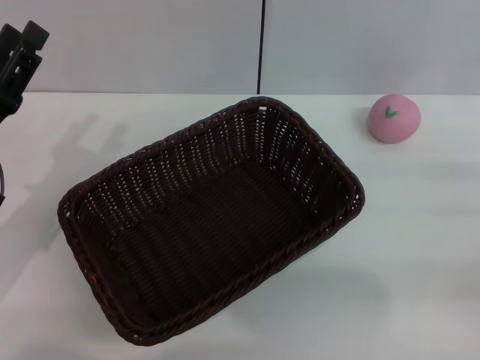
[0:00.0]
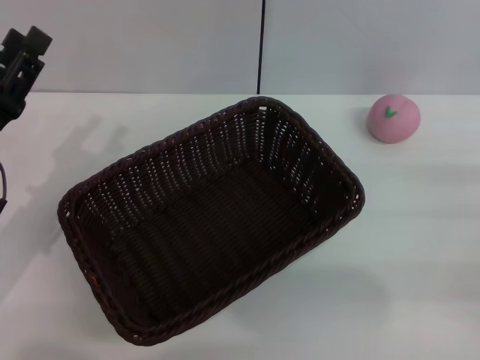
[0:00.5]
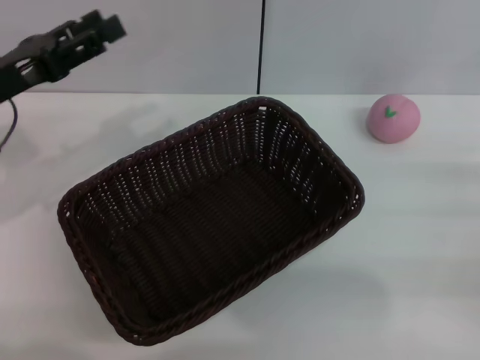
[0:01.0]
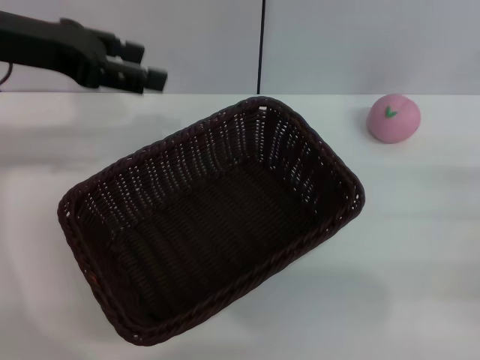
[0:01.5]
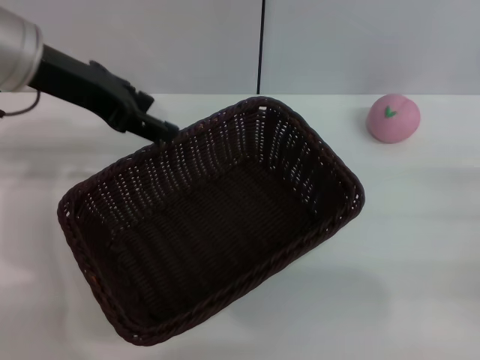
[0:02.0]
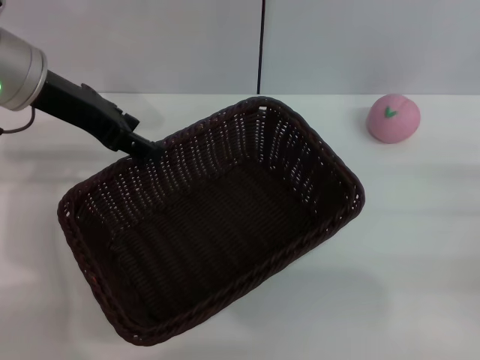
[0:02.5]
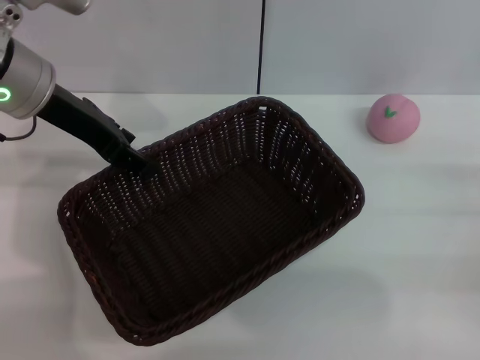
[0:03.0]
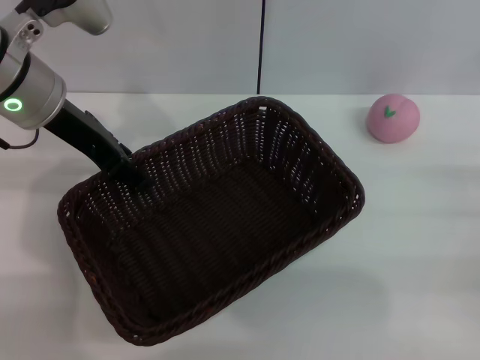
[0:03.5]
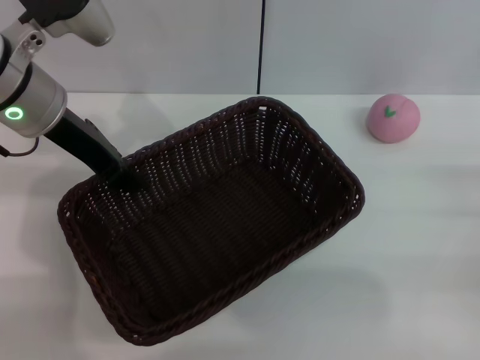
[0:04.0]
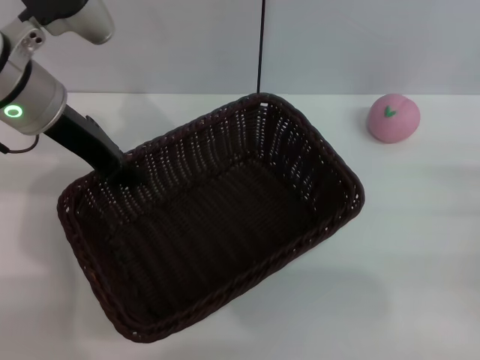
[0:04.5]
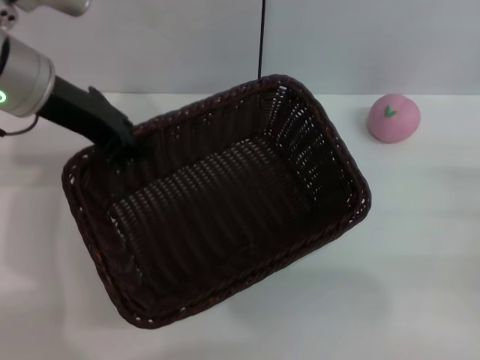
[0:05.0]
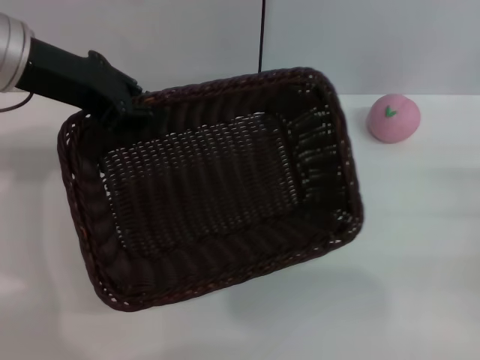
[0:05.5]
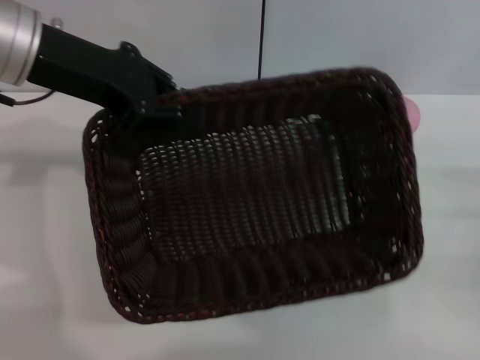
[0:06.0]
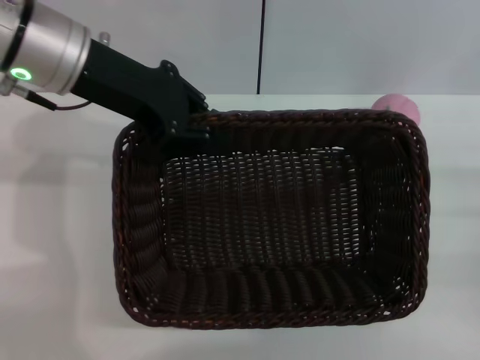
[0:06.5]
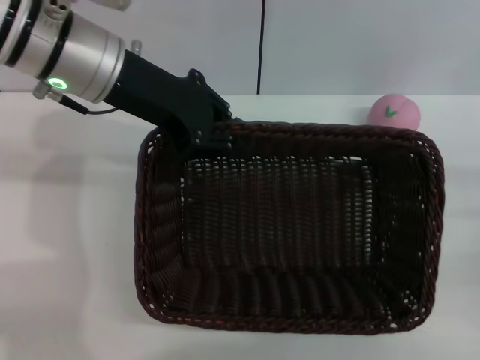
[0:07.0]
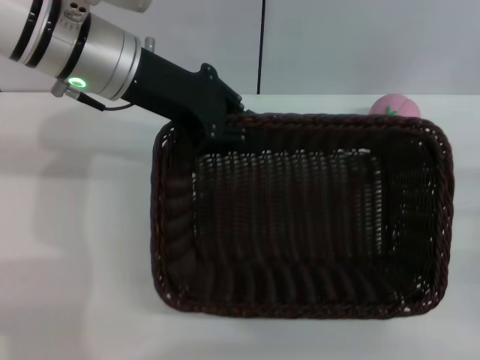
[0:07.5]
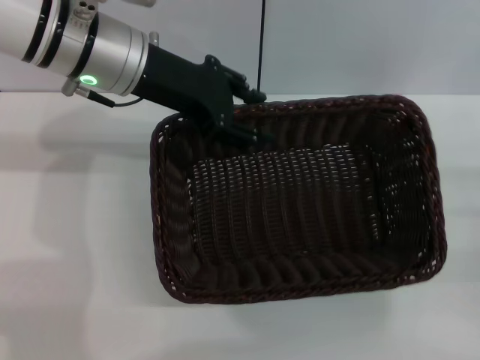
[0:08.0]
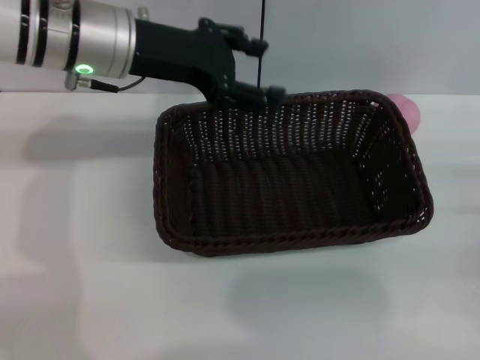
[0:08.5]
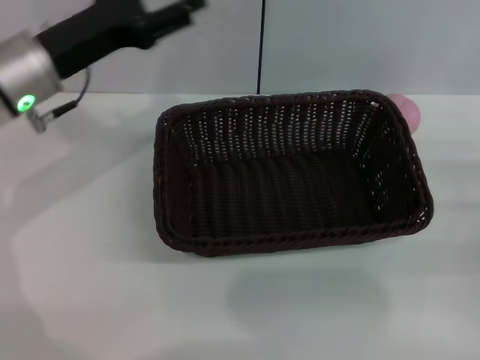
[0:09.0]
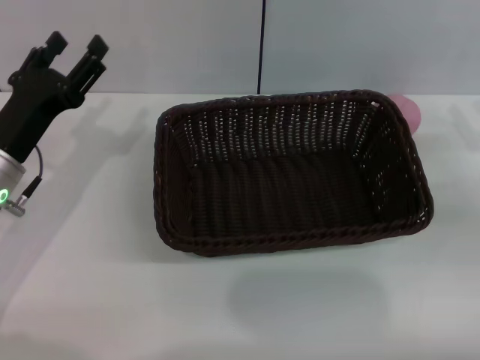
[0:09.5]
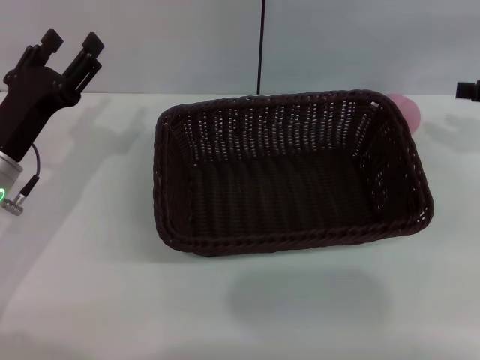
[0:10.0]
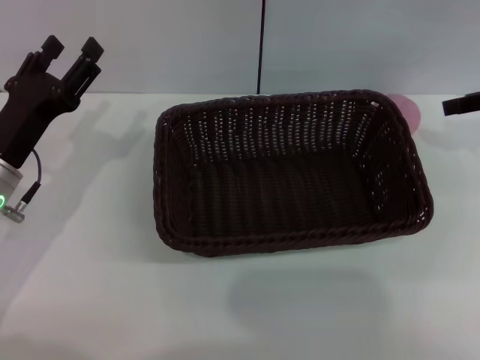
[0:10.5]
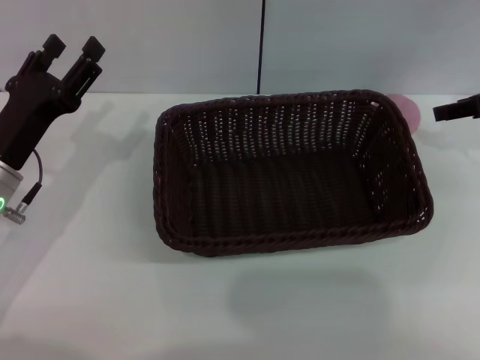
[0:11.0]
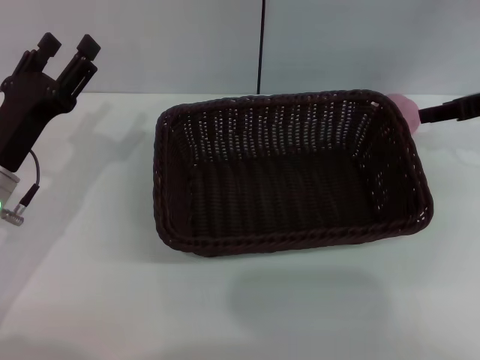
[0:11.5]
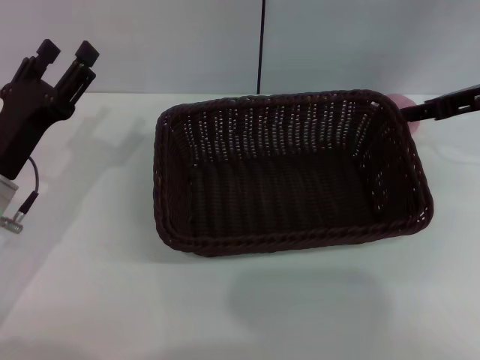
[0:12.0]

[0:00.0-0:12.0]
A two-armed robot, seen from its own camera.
Step, 0:00.0 to 0:05.5: Pick up the dark basket with the left gripper.
0:00.0 to 0:02.0: The left gripper goes about 20 cm upward, forward and to the right.
0:02.0 to 0:04.0: The left gripper closes.
0:04.0 to 0:06.0: The left gripper moves upward, approximately 5 cm, and closes up.
0:06.0 to 0:08.0: The left gripper shifts about 5 cm to the right.
0:08.0 to 0:10.0: The left gripper is displaced downward, to the left and backward by some 20 cm, and opens up; the right gripper goes roughly 15 cm upward and forward.
0:10.0 to 0:12.0: The right gripper heads to the left and forward, covering some 10 cm.

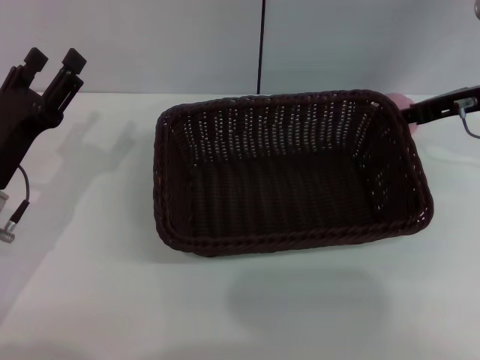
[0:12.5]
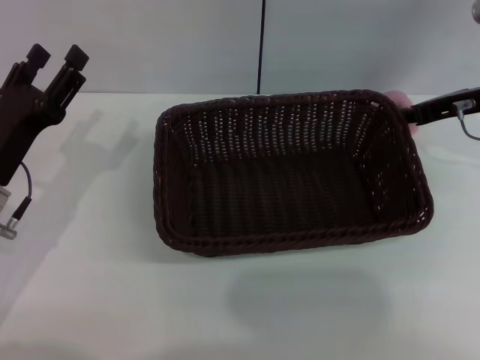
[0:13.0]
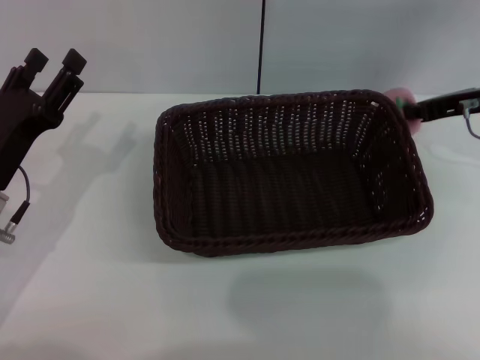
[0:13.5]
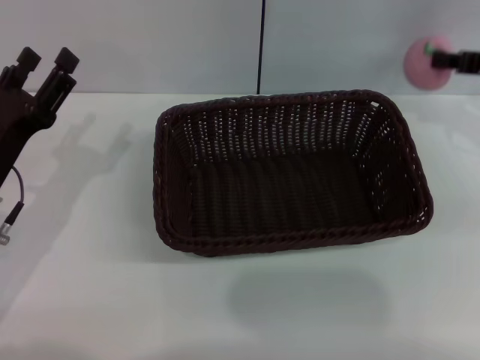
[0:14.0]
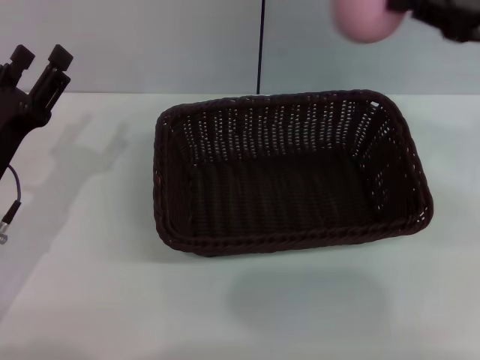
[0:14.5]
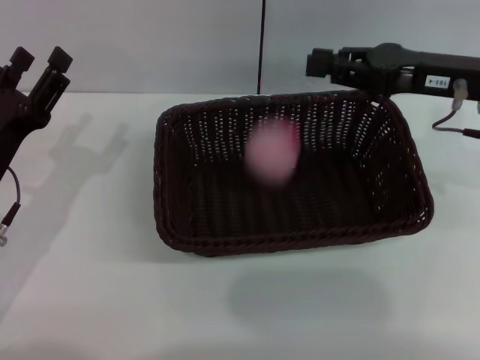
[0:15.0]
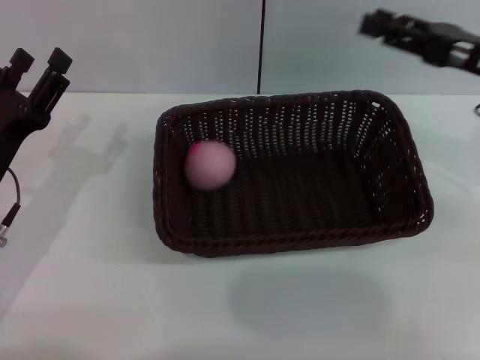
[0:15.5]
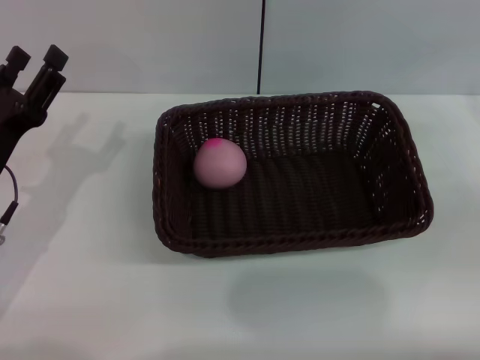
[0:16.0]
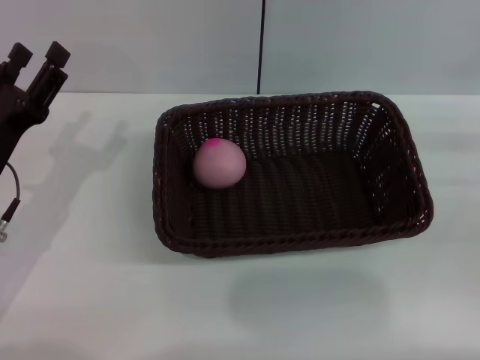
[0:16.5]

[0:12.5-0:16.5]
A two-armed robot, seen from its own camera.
0:12.5 to 0:14.5: The right gripper heads backward and upward, covering some 10 cm, and closes its fingers.
0:14.5 to 0:16.5: The right gripper moves downward, to the right and backward, about 15 cm, and opens its fingers.

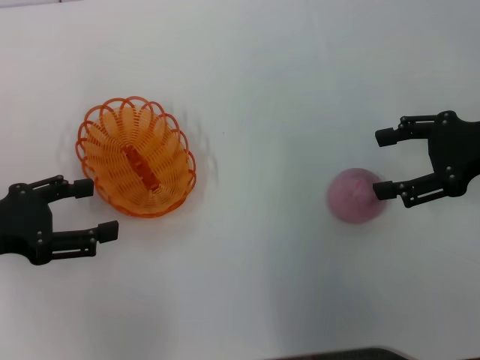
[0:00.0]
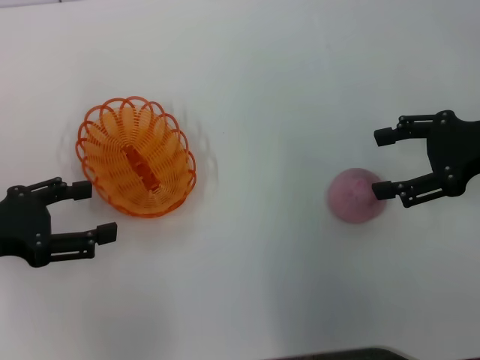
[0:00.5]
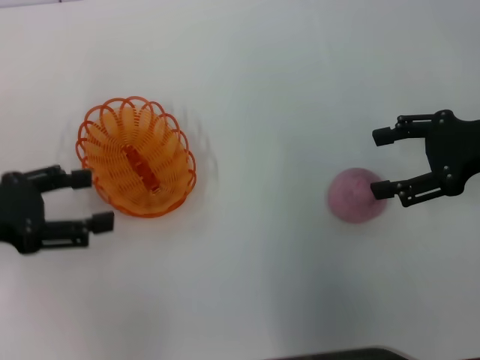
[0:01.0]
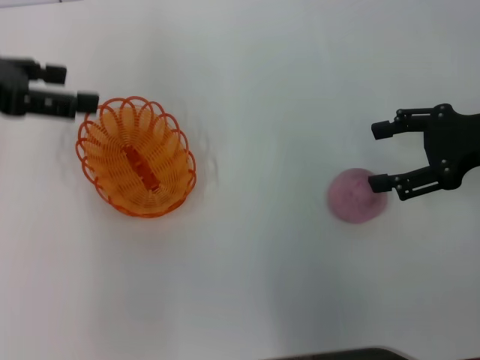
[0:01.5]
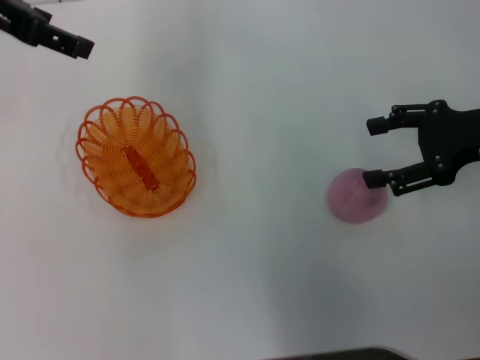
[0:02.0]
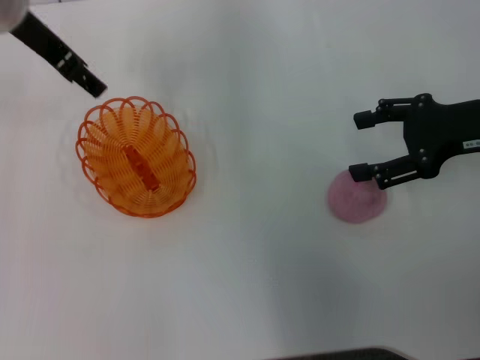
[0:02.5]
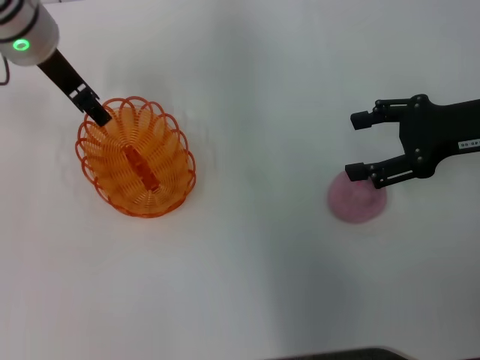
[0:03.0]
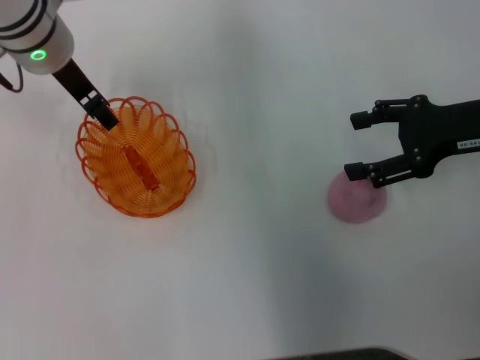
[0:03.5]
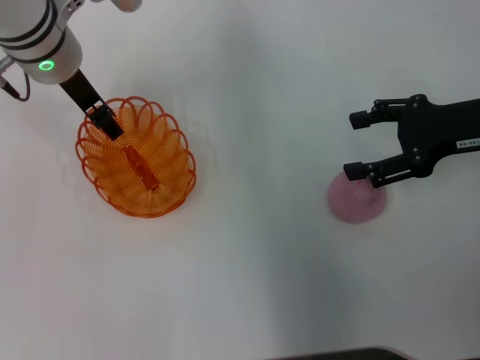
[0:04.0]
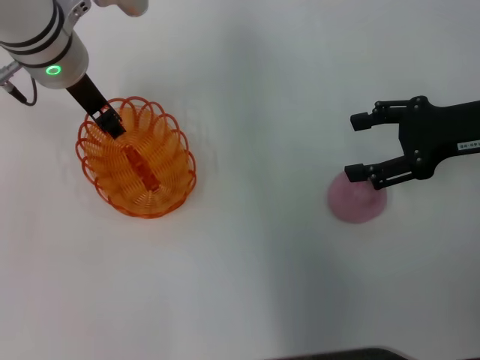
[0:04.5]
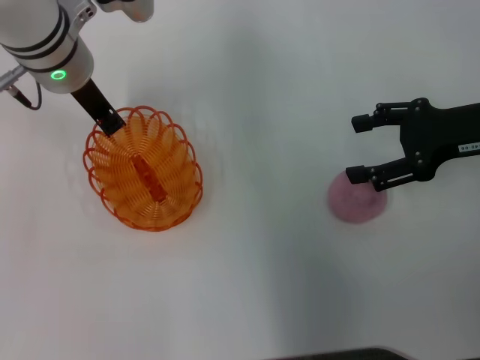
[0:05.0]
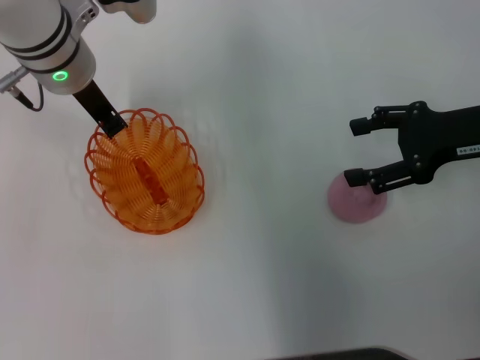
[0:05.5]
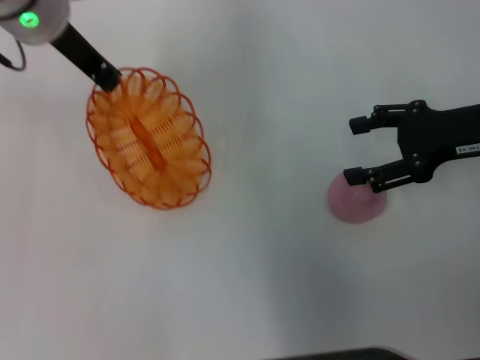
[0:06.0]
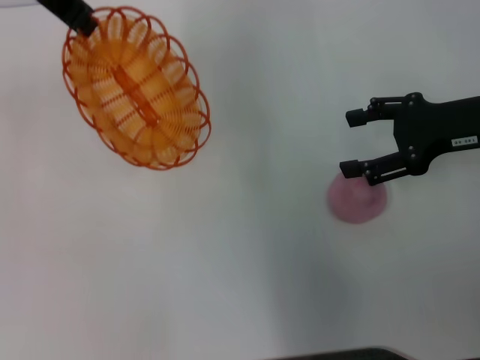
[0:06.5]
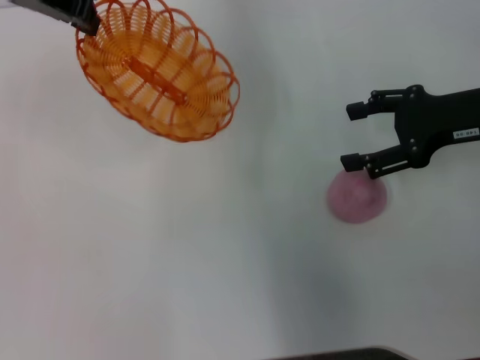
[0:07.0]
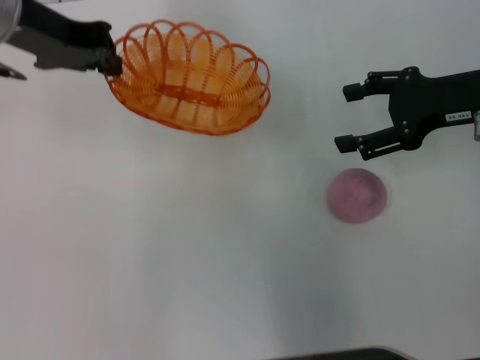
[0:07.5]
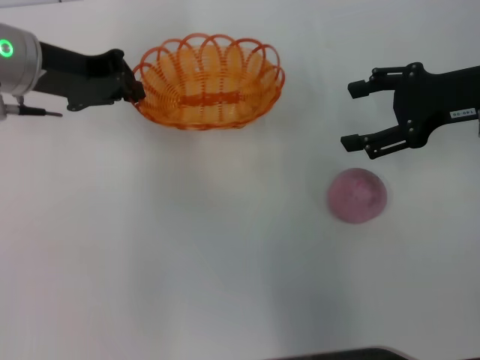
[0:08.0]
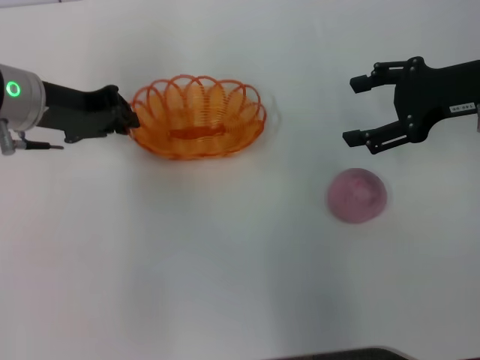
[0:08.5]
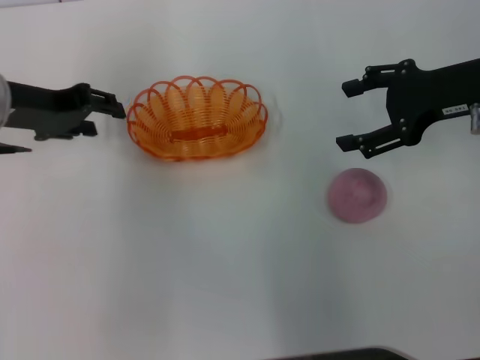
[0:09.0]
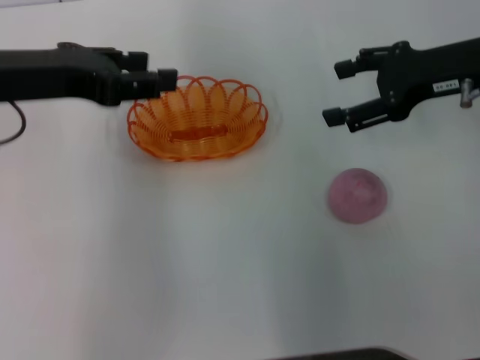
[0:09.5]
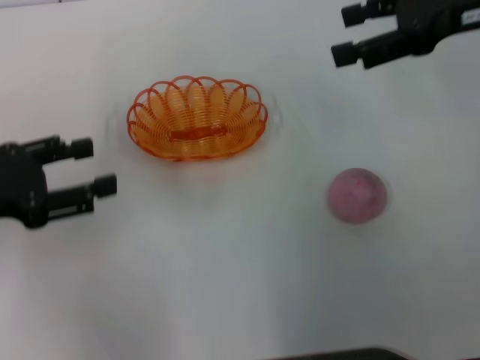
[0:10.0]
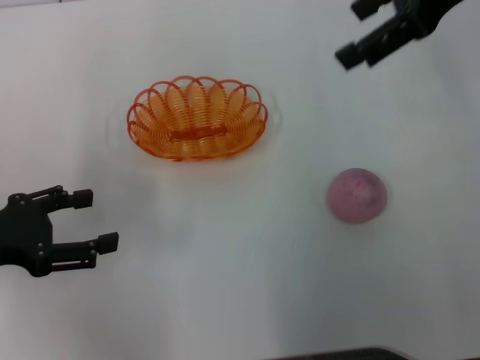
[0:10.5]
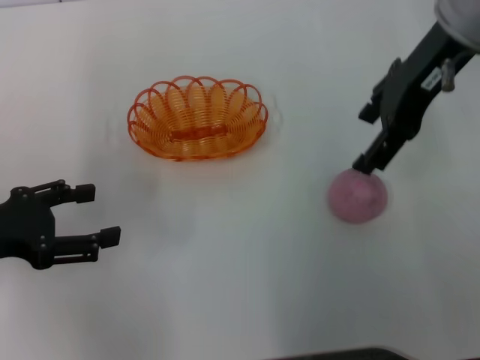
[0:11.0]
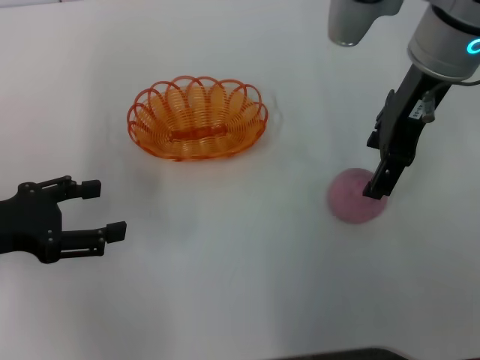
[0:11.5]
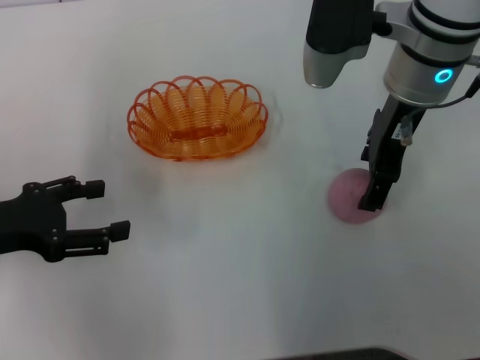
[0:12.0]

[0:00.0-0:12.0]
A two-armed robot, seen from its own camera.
Step, 0:00.0 to 0:06.0: Pick up the basket with the left gripper.
Step, 0:06.5 to 0:09.0: Place the basket in the center of view with the left gripper.
0:00.0 to 0:02.0: The left gripper is displaced upward and forward by approximately 20 cm.
0:02.0 to 0:04.0: The left gripper shifts some 15 cm downward and to the right.
0:04.0 to 0:06.0: The left gripper closes.
0:06.0 to 0:08.0: The left gripper is displaced to the left by about 5 cm, and reaches about 10 cm upward, then returns.
0:08.0 to 0:10.0: The right gripper is displaced upward by roughly 10 cm. Meanwhile the left gripper moves backward and to the left, about 15 cm, and opens up.
0:10.0 to 0:12.0: The right gripper travels to the left by approximately 15 cm.
